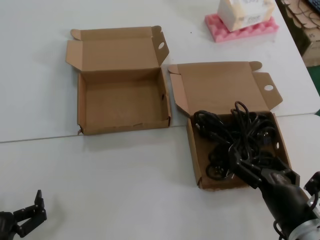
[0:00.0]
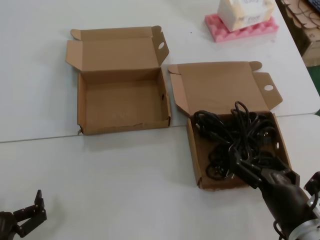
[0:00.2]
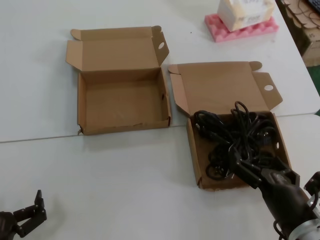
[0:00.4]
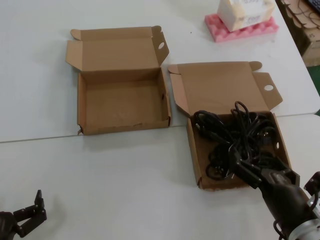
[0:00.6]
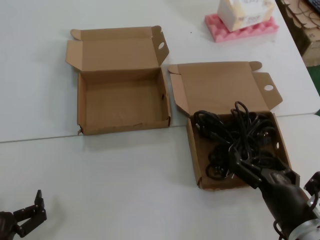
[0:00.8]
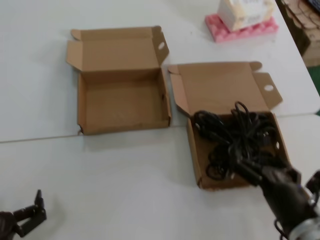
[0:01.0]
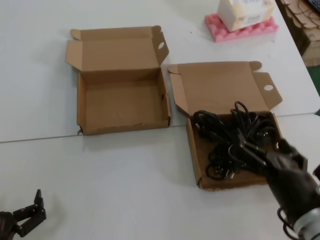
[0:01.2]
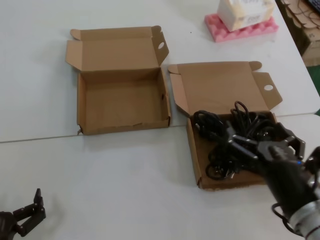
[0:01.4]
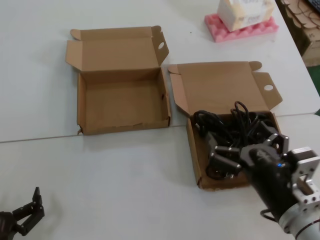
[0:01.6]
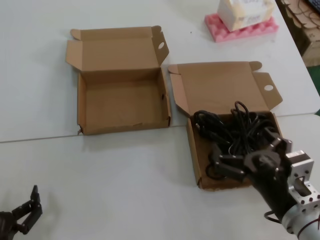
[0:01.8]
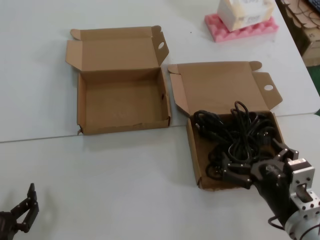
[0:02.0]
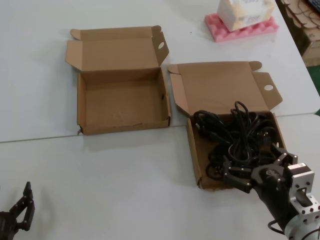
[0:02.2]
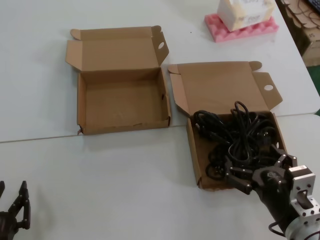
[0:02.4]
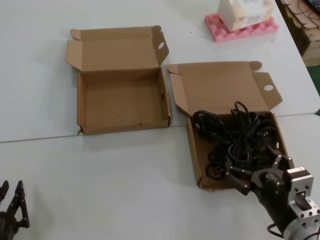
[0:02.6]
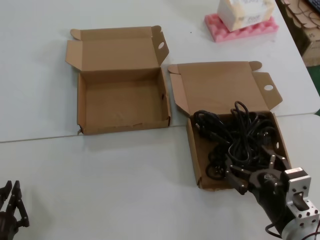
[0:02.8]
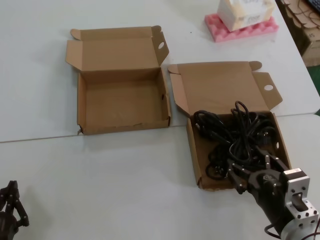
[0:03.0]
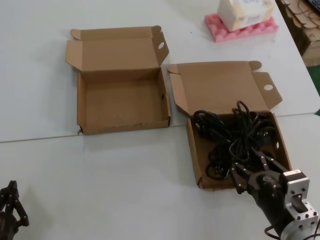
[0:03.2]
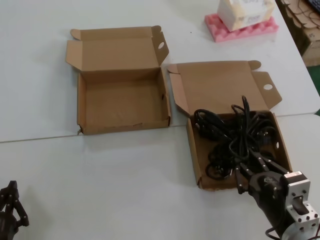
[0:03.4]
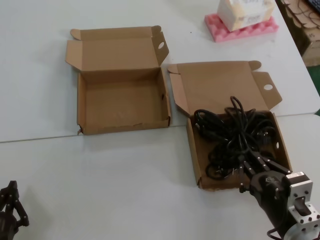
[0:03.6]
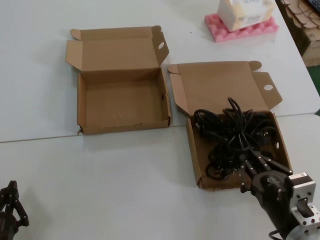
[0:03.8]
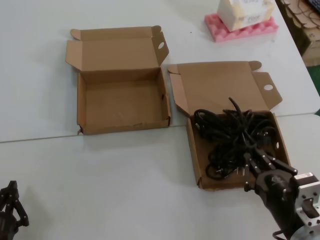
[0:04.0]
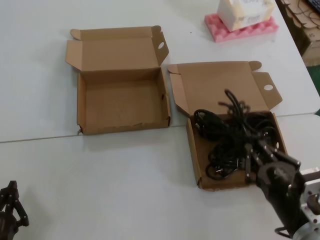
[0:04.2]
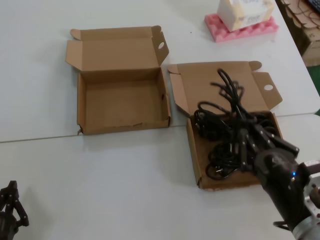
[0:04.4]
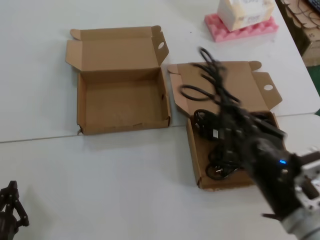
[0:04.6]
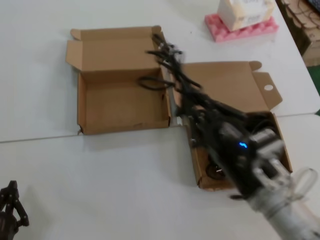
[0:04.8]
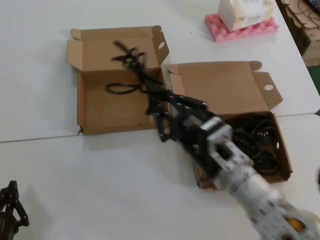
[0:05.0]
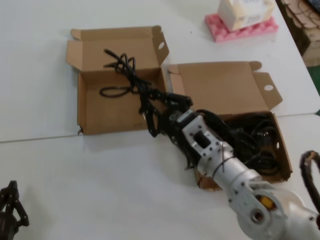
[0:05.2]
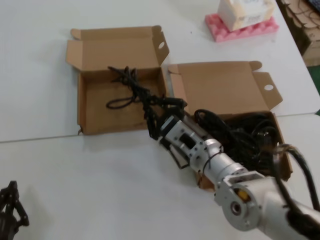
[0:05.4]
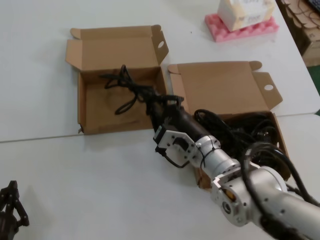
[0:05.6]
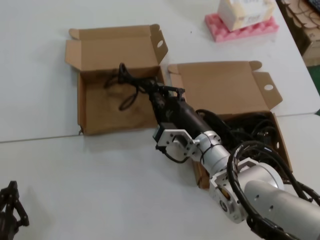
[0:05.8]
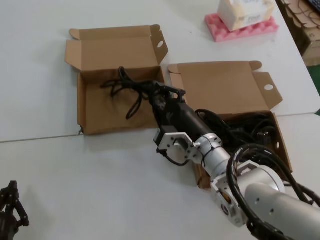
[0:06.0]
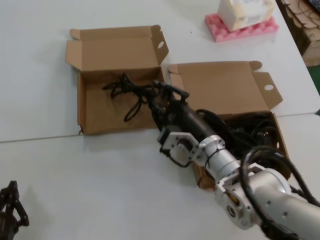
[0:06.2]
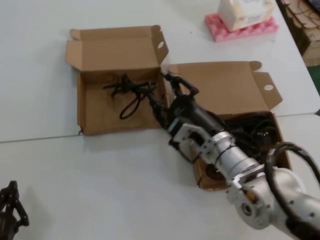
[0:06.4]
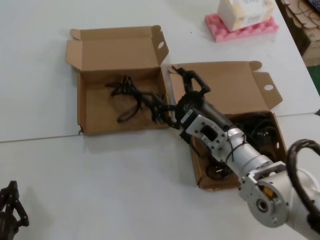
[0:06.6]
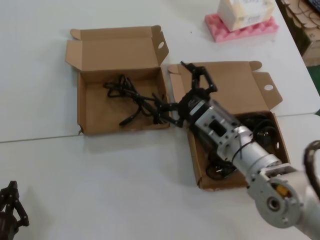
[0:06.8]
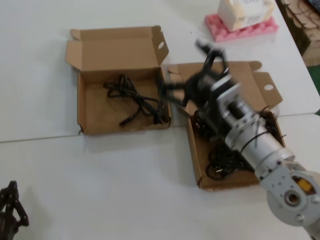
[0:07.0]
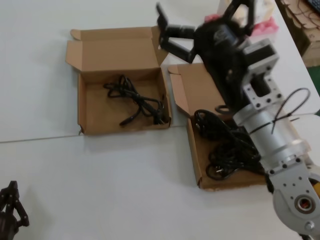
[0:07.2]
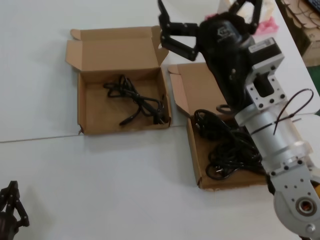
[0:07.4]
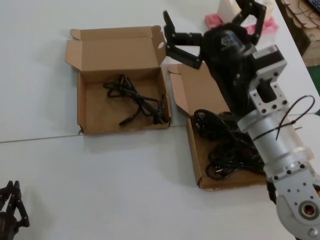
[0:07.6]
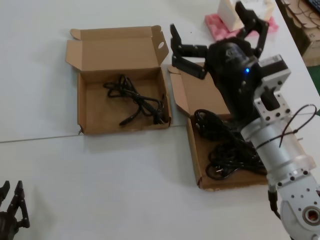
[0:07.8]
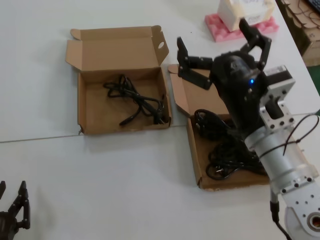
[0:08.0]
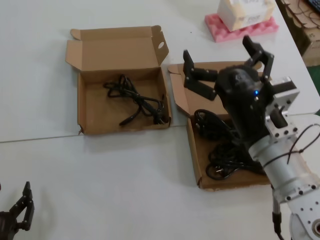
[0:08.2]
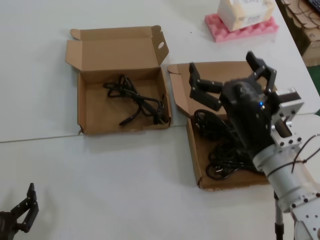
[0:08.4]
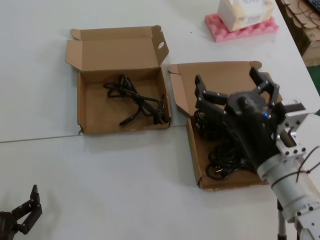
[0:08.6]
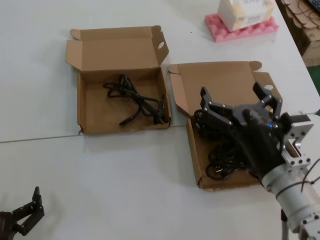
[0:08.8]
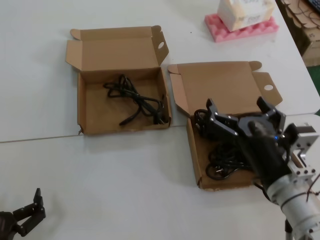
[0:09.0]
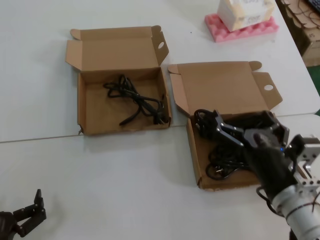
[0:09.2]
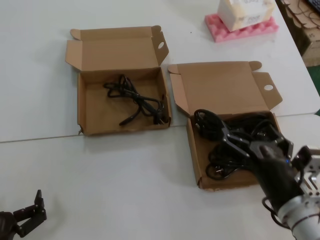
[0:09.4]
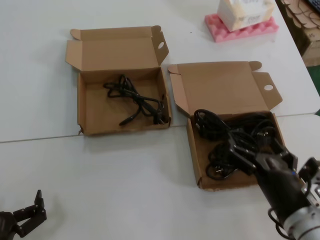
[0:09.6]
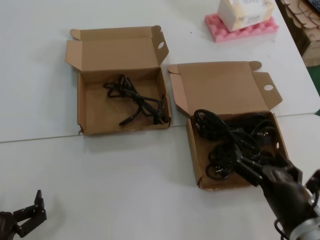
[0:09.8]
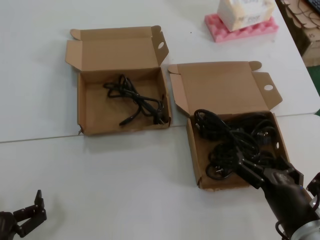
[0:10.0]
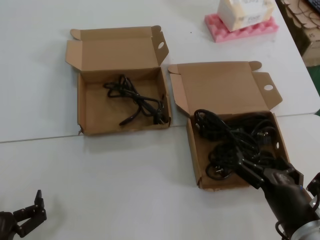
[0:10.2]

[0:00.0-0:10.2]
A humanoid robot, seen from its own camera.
Task of the whole recording: Pick up the power cord from the box containing it and place it in another box.
Step, 0:00.0 to 0:03.6: Grasp the data cable.
Step, 0:03.8 to 0:06.8: Place the data cable in the another box.
0:00.0 to 0:01.4: The right hand heads upward, covering approximately 5 cm.
0:01.4 to 0:03.0: The right hand goes about 5 cm downward.
0:03.0 to 0:04.4: The right hand changes place by roughly 5 cm.
0:04.4 to 0:05.8: The right hand travels forward and to the left by approximately 25 cm.
0:05.8 to 0:07.2: The right hand travels upward and backward by approximately 15 cm.
0:07.2 to 0:08.8: The right hand is displaced downward by roughly 10 cm.
0:08.8 to 0:10.2: The right hand travels downward and backward by approximately 10 cm.
